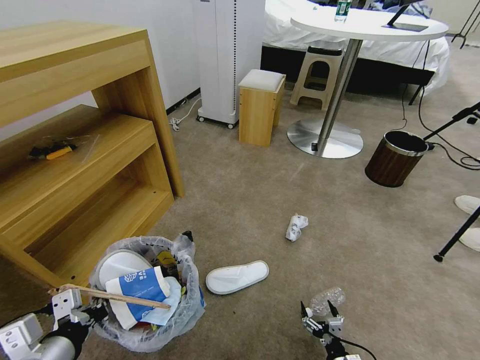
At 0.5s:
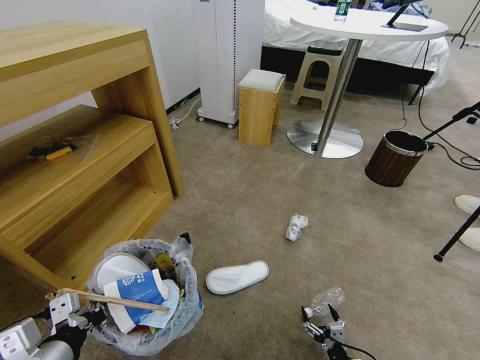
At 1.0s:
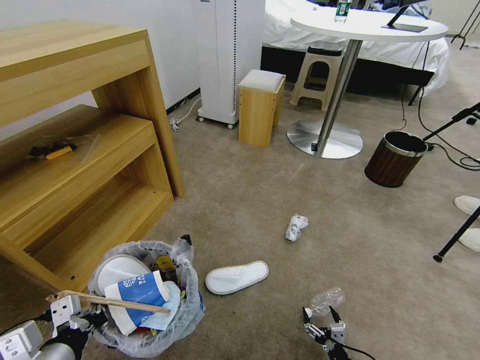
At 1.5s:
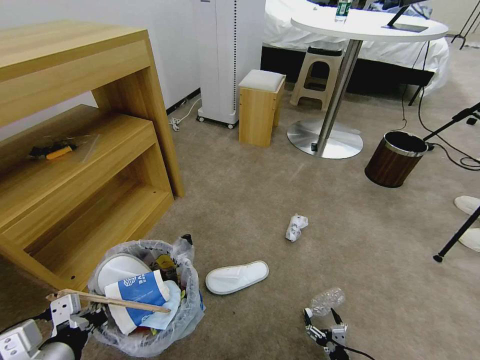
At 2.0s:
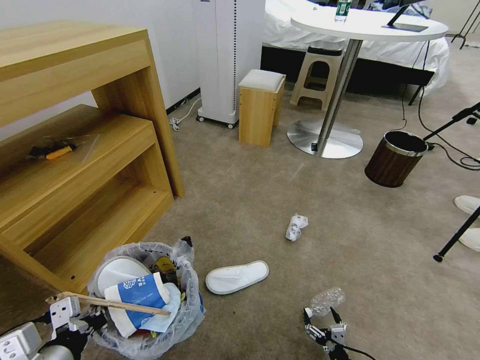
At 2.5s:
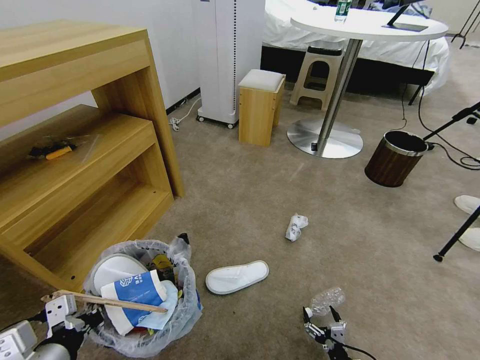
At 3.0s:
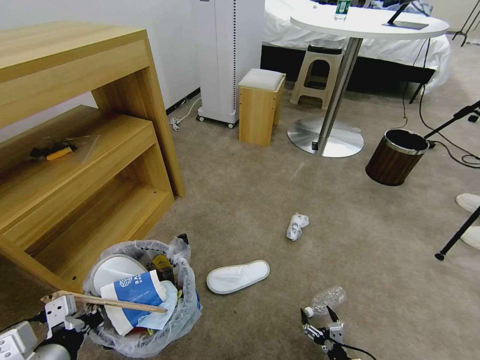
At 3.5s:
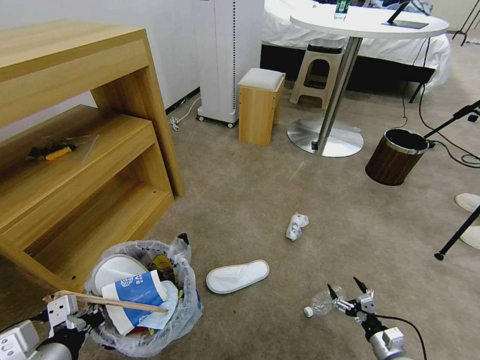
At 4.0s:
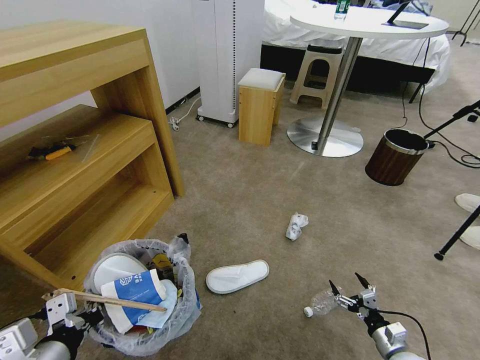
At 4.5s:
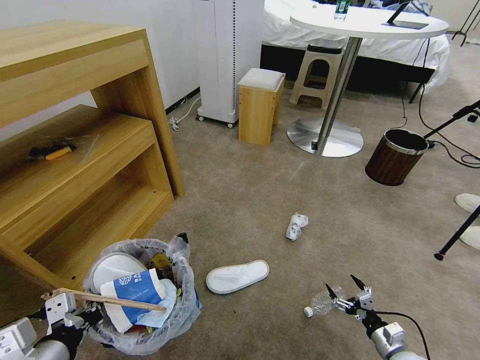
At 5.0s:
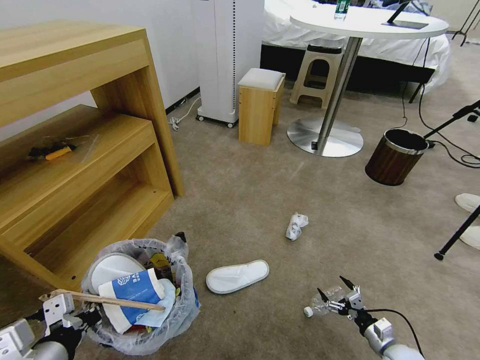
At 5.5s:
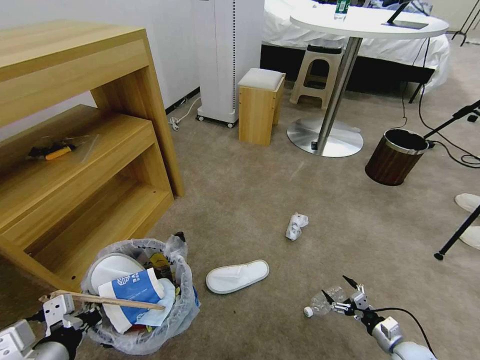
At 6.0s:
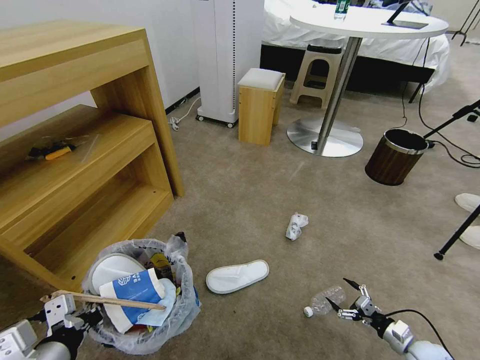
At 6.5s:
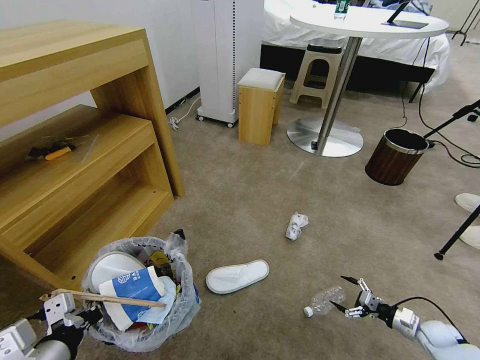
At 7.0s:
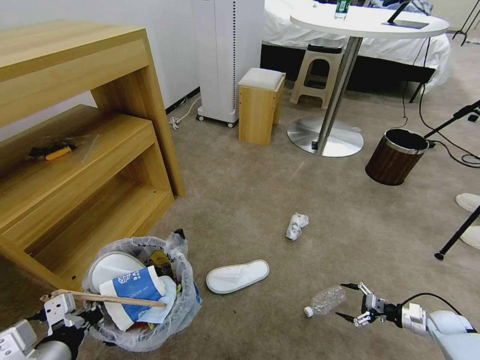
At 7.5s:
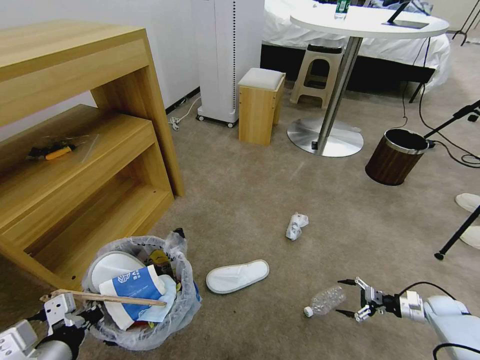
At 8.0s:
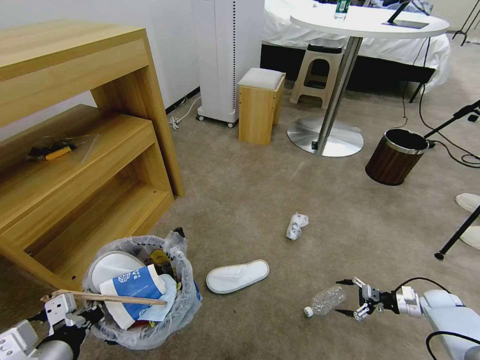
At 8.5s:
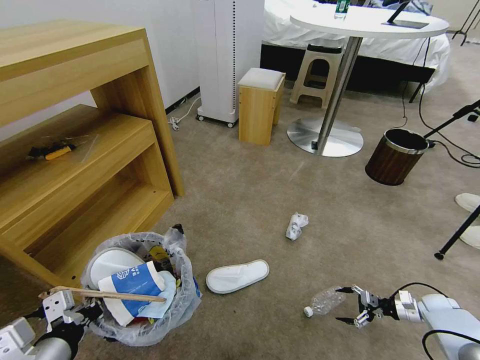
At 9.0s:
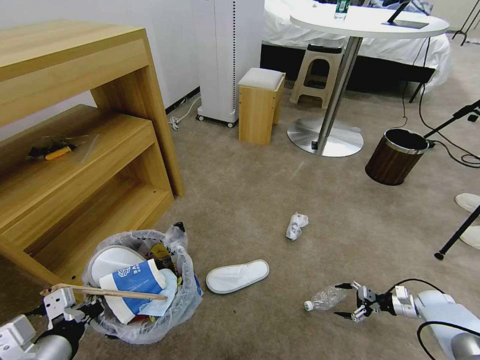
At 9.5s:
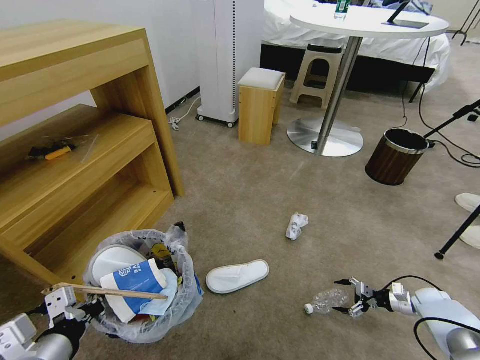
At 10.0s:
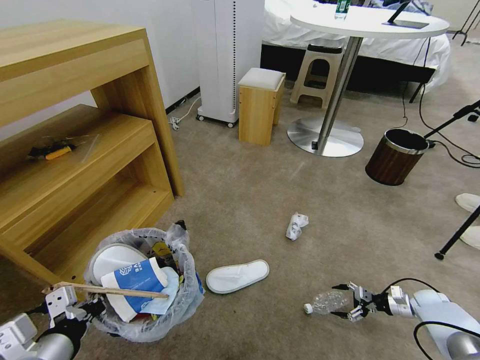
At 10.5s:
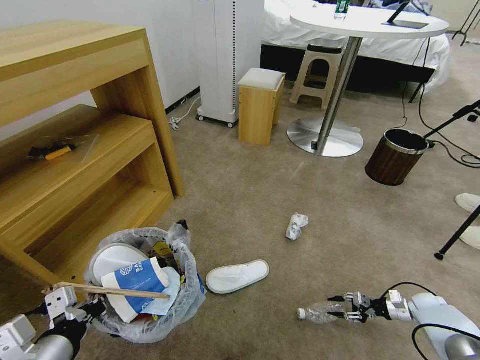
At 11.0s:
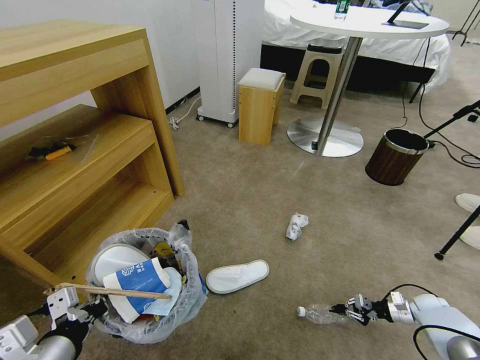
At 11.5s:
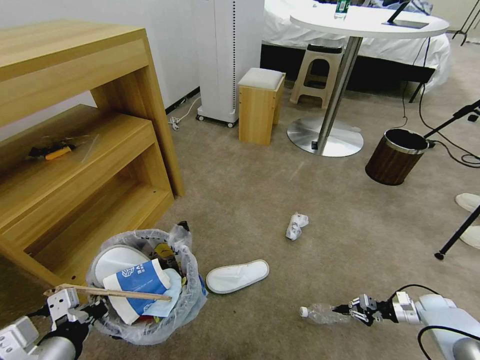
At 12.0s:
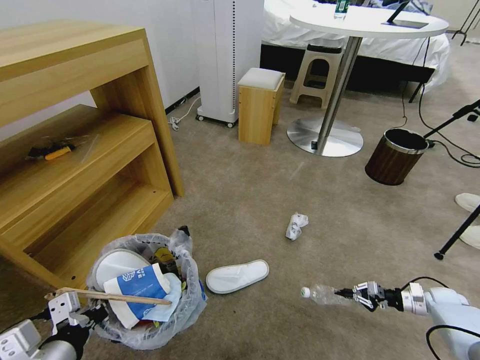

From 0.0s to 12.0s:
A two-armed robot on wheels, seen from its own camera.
Task of the whole recording: Pick up the trash bin and place the garbage on the floor into it.
From 0.0s to 2.0s: The grippers move only a little.
From 2.0s to 4.0s: The right gripper shifts approximately 15 cm to the right, forward and upward.
From 4.0s to 6.0s: The right gripper moves to the right, roughly 10 cm.
From 6.0s to 8.0s: The right gripper is displaced forward and to the right by roughly 15 cm.
From 8.0s to 10.0s: There are only small adjustments of the grippers.
From 10.0s to 12.0s: The right gripper closes its fingers.

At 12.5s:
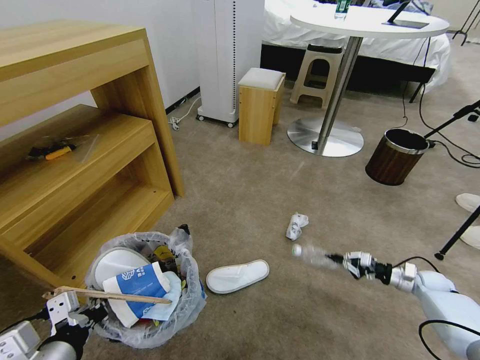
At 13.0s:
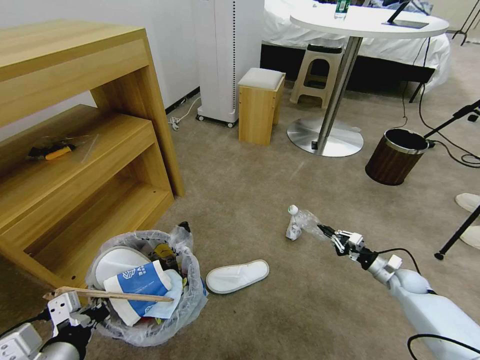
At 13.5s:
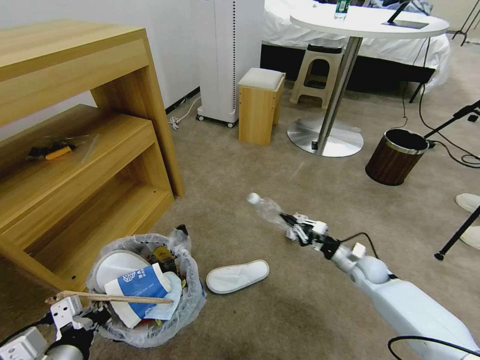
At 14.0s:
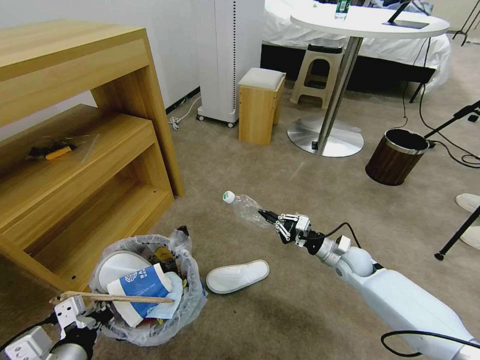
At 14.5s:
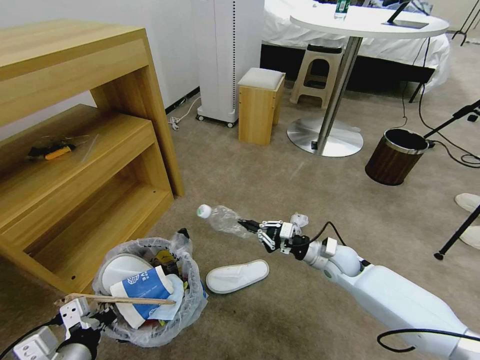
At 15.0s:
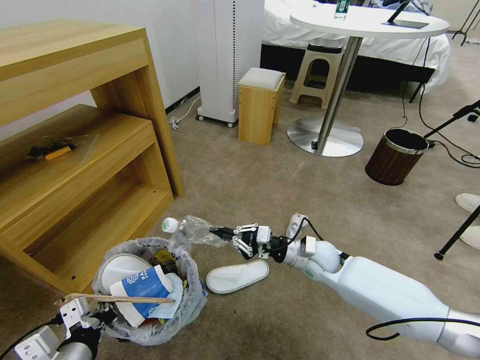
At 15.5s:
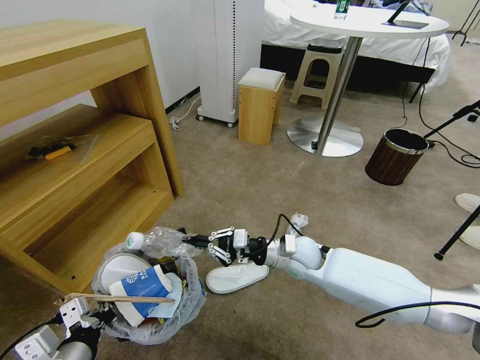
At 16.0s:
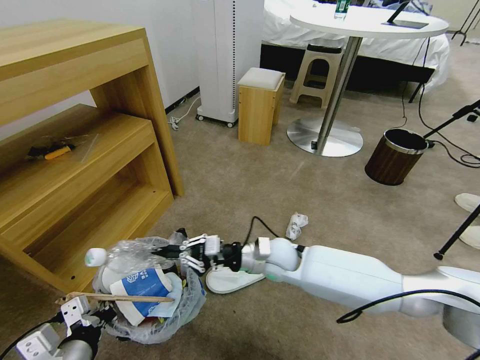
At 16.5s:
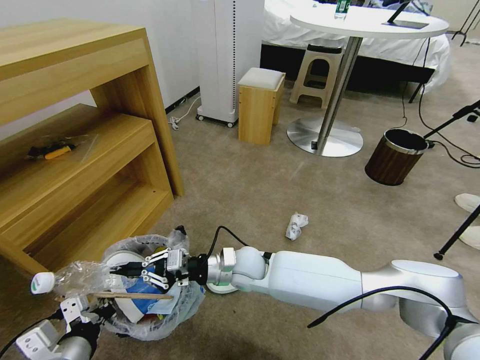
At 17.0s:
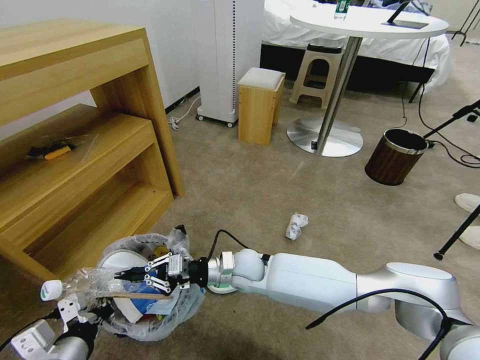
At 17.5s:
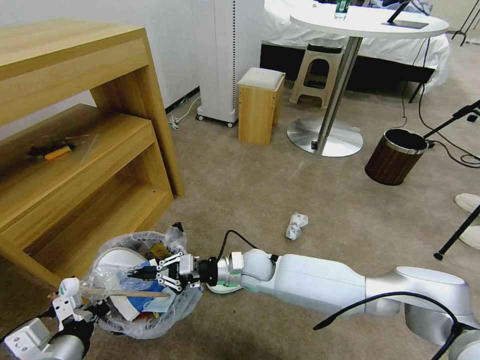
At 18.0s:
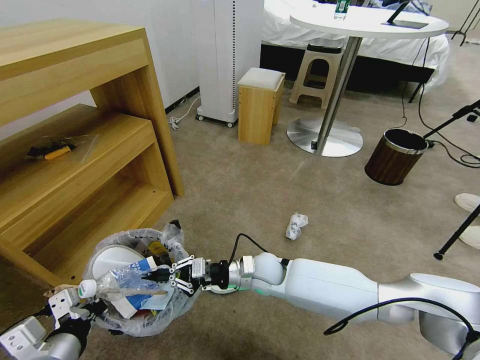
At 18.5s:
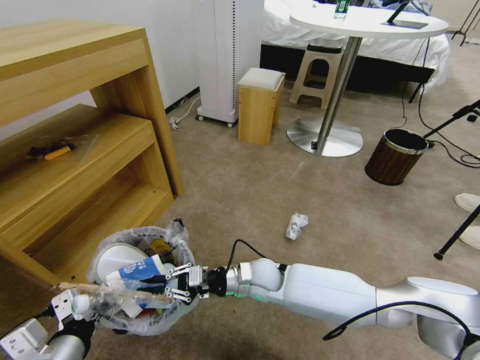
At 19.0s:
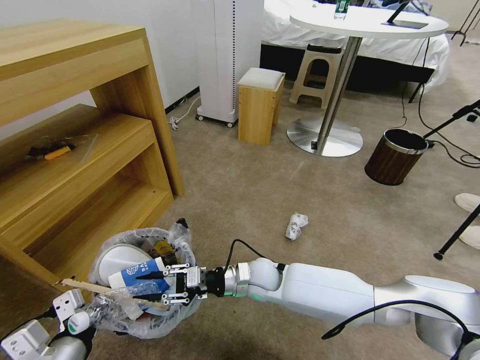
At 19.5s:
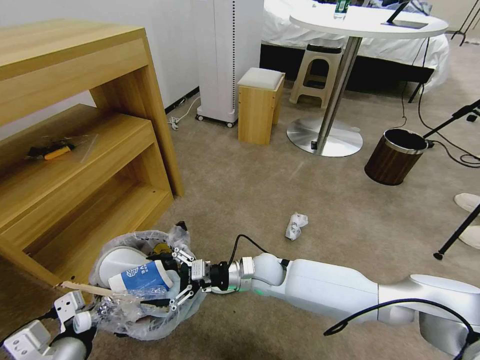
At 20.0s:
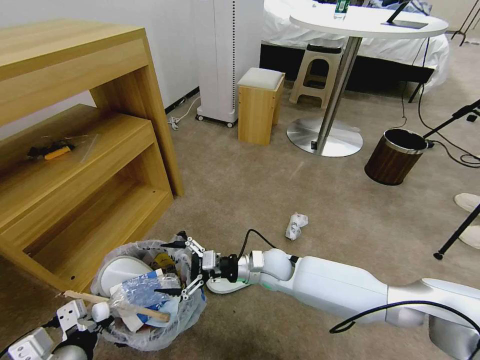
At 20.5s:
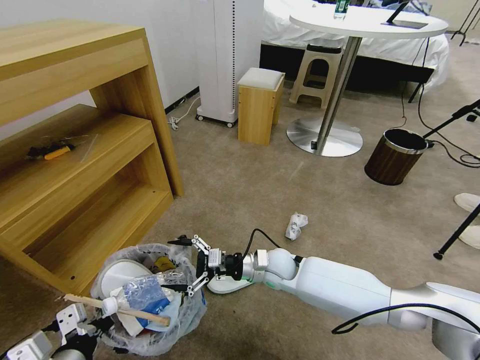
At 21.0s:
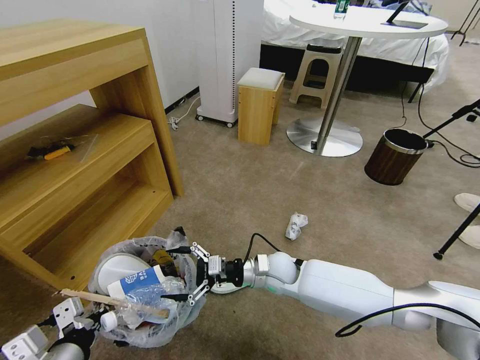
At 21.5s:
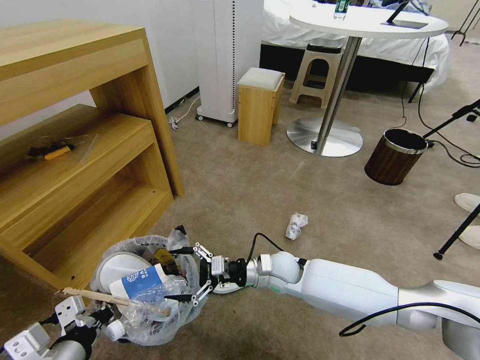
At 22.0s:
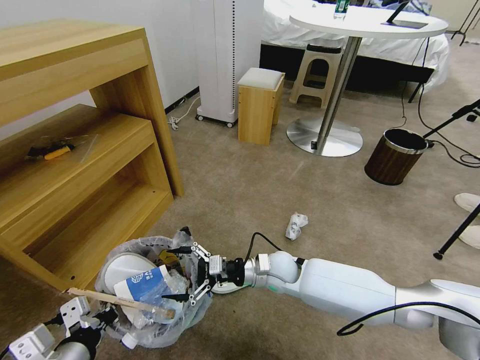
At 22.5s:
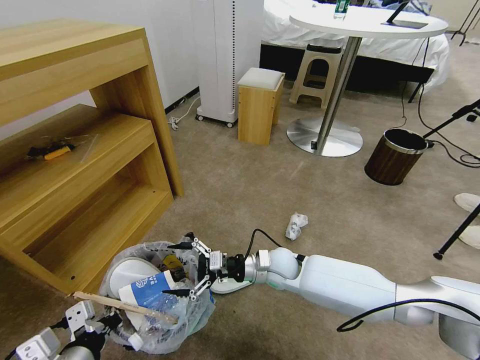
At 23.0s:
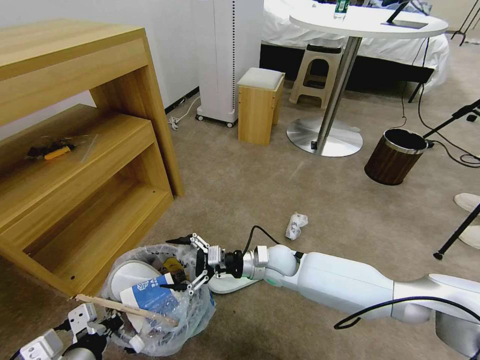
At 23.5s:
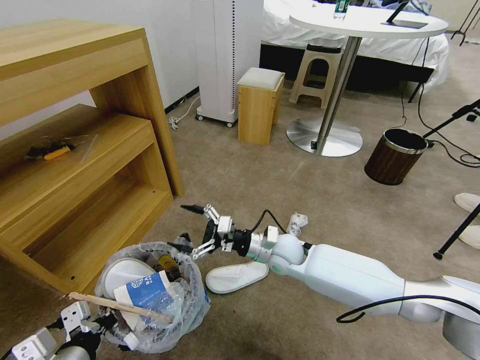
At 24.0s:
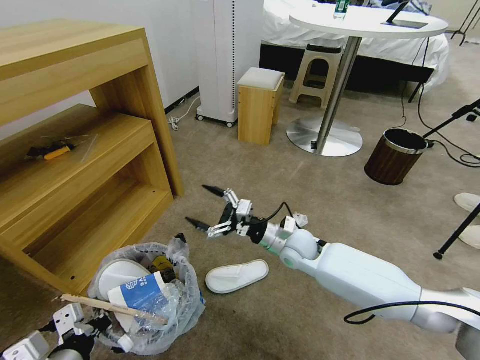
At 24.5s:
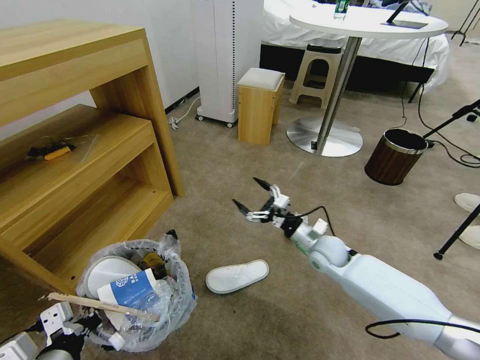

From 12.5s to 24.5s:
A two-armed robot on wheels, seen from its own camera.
Task of the whole recording: Pick up the trash bin and place the garbage on the floor into it.
From 12.5s to 14.5s: The right gripper shifts some 30 cm to the left.
From 14.5s to 16.5s: The right gripper moves to the left, approximately 25 cm.
From 16.5s to 18.5s: The right gripper moves some 5 cm.
From 18.5s to 20.5s: The right gripper opens up.
From 20.5s to 22.5s: Neither gripper changes place.
From 22.5s to 24.5s: The right gripper travels to the right by about 15 cm.

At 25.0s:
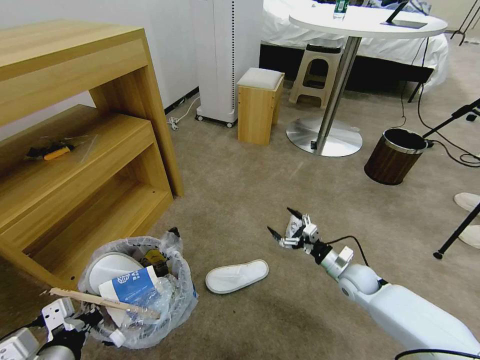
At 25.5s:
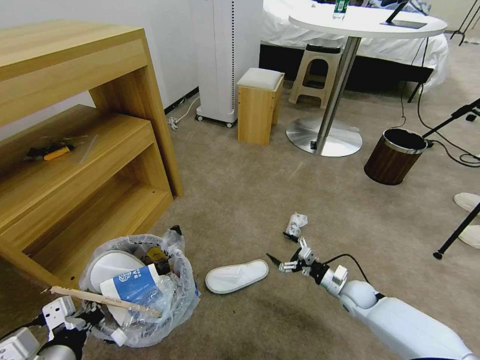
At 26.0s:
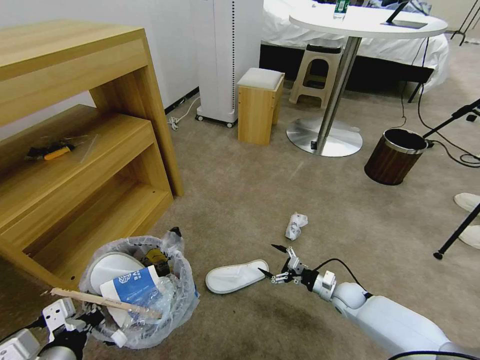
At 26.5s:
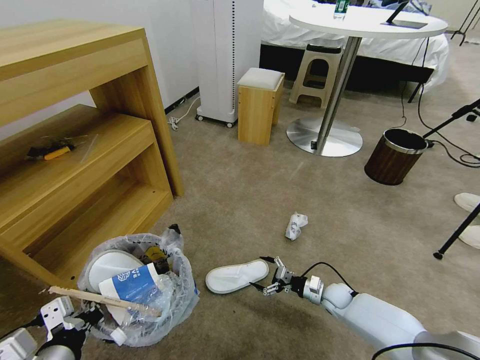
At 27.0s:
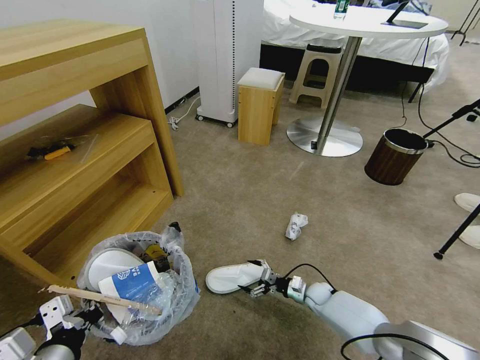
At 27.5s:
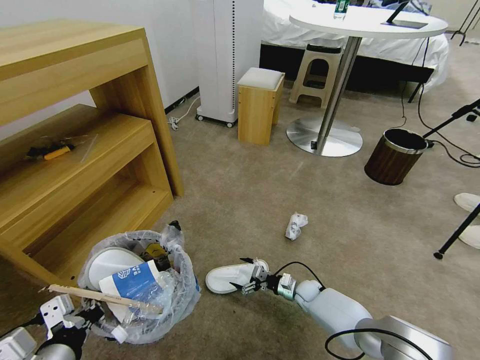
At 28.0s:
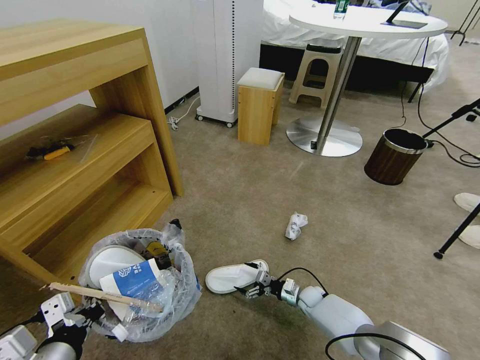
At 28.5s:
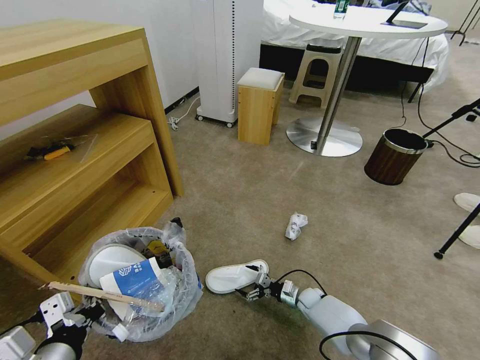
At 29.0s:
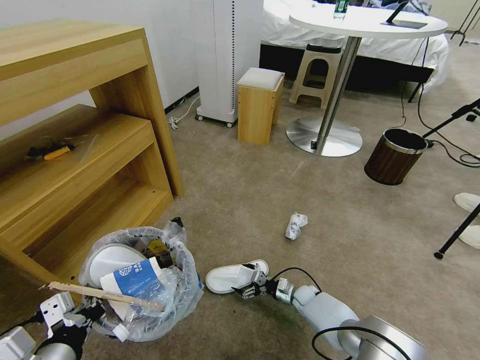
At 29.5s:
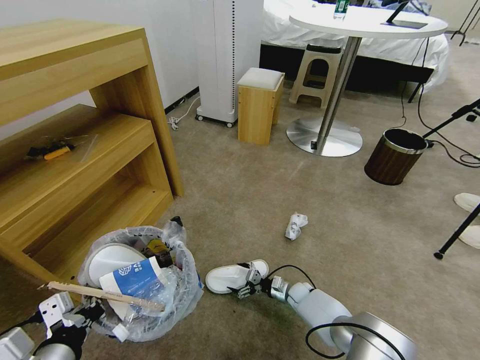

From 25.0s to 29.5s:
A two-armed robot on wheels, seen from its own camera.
Task of the whole recording: Pick up the trash bin and place the garbage on the floor into it.
From 25.0s to 27.0s: The right gripper moves downward, roughly 15 cm.
From 27.0s to 29.5s: The right gripper changes place by about 5 cm.
